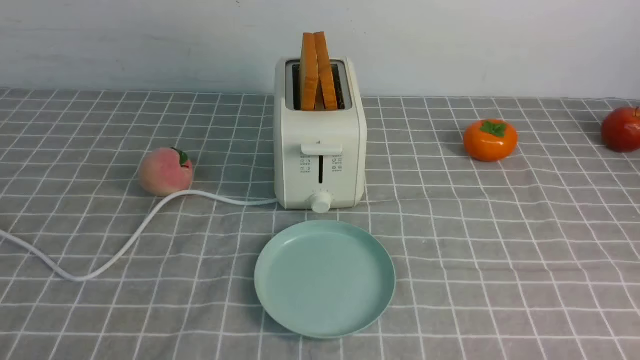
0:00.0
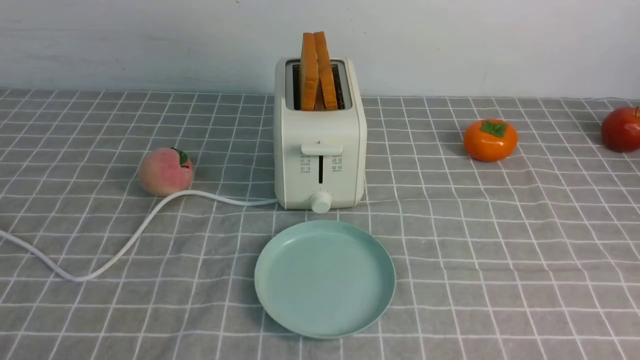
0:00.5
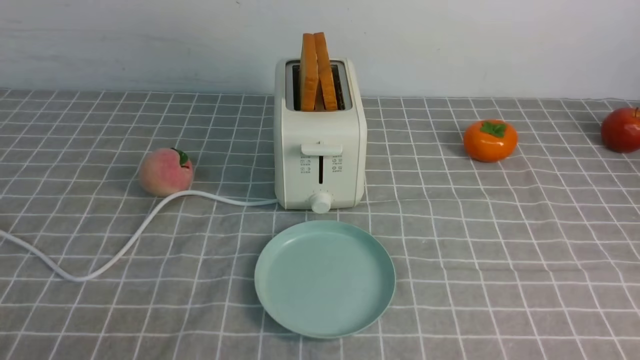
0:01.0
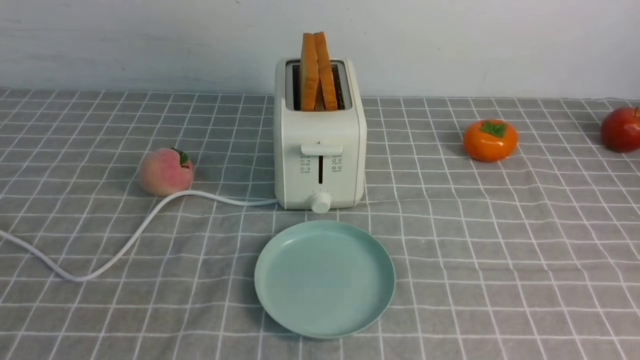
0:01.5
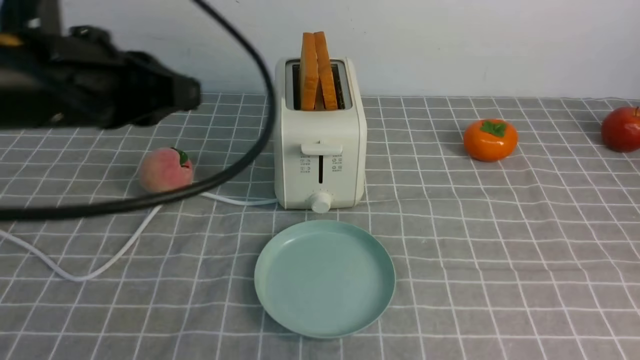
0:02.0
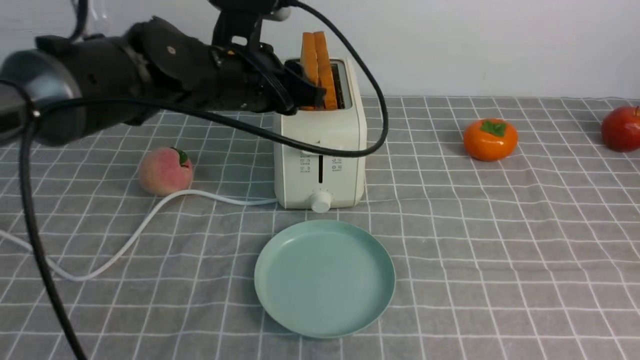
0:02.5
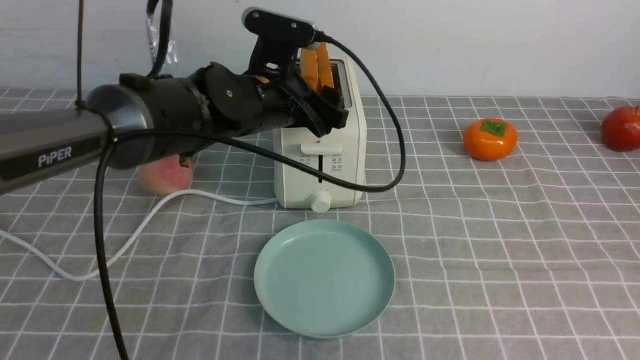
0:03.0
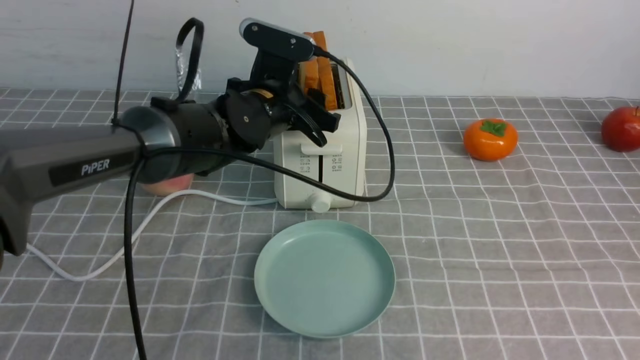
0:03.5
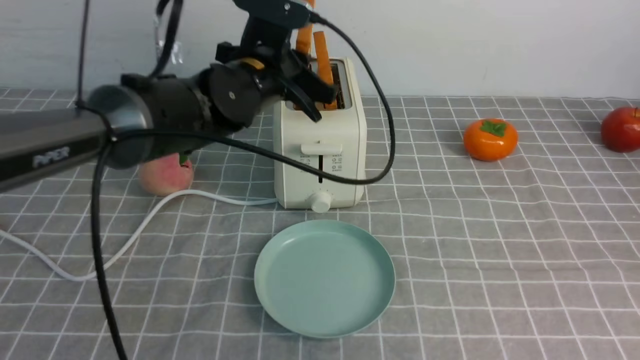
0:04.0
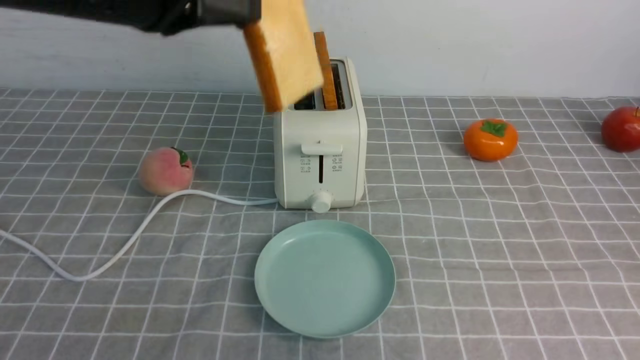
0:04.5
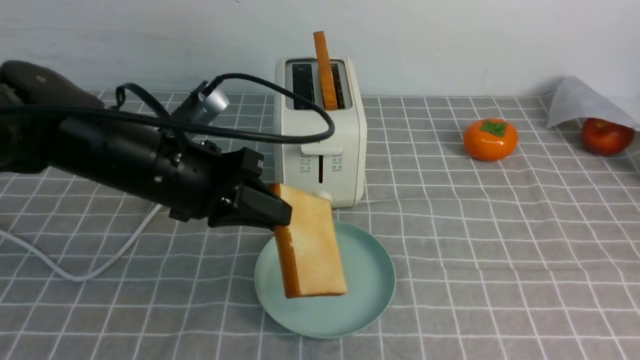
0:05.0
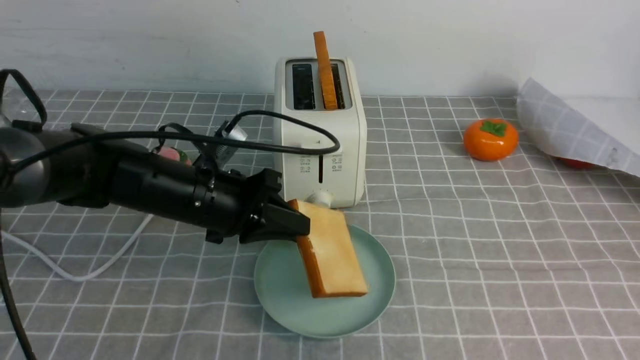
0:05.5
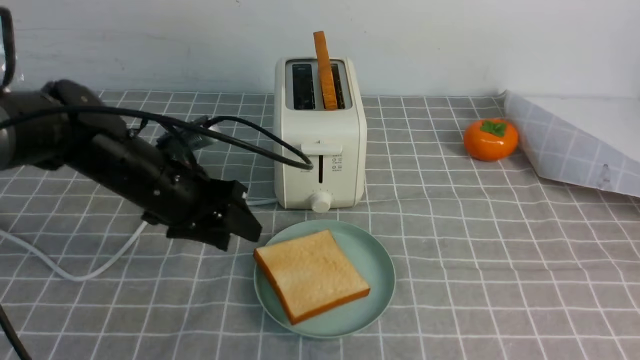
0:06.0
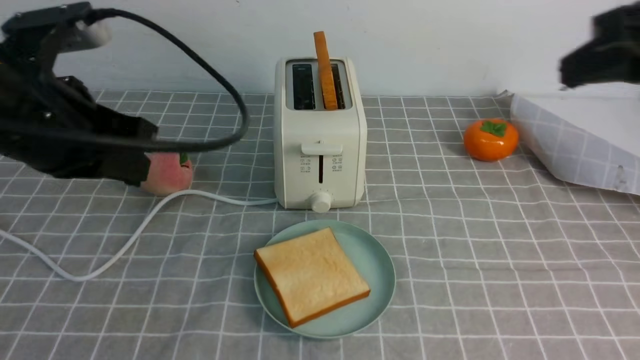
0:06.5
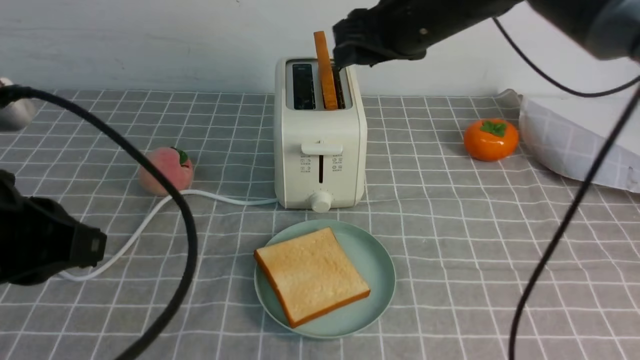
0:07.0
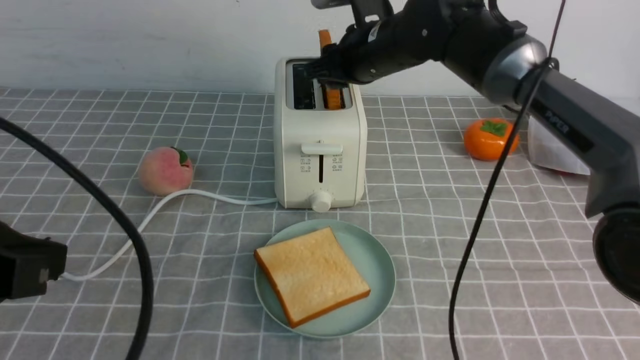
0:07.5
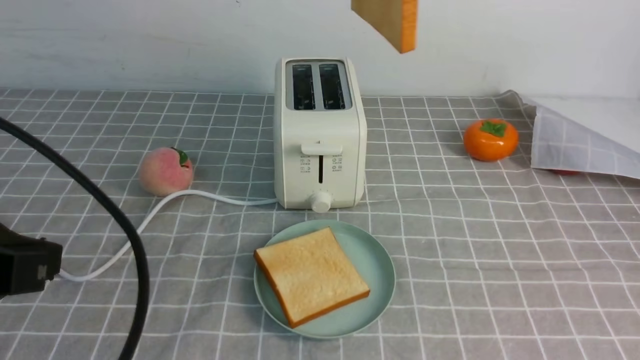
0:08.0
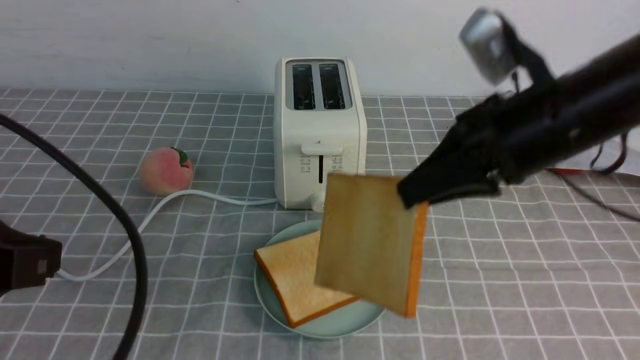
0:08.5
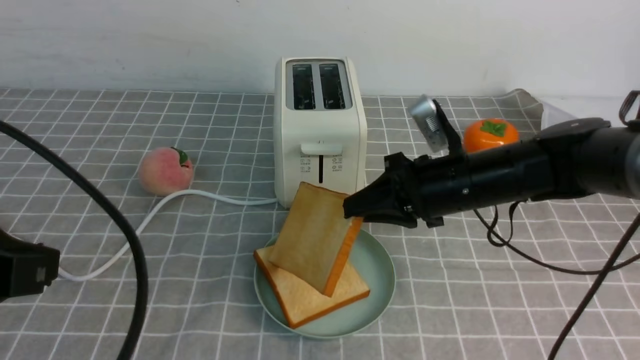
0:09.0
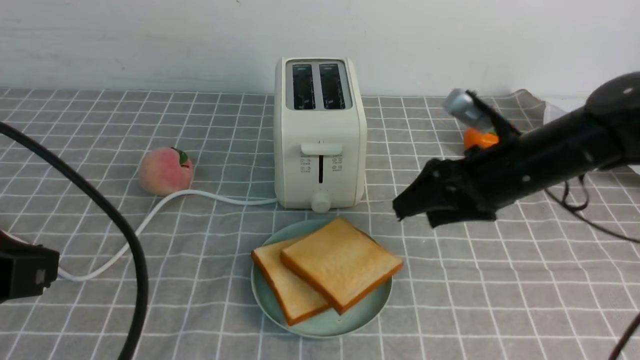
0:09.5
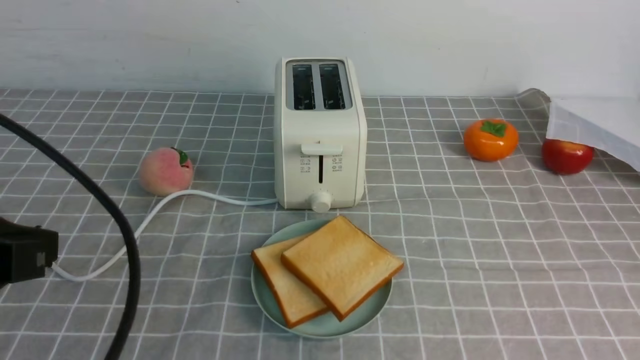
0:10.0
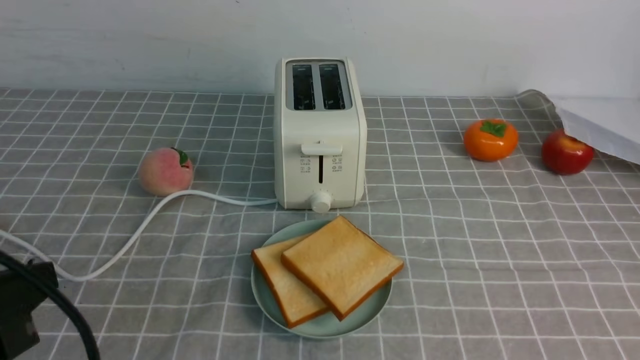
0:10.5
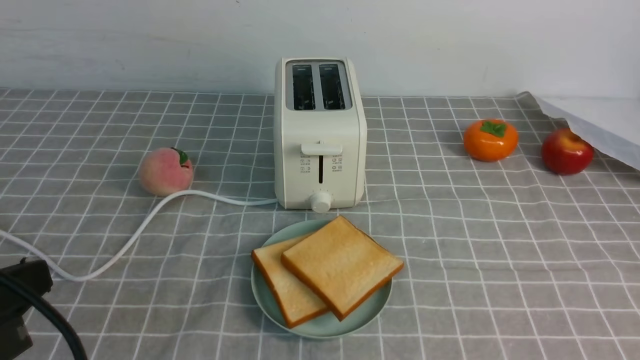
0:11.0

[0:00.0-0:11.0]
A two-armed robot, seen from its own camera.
Task of the whole recording: take toasted bread from bread machine on grey coffee table place on plate.
Step, 0:00.0 to 0:04.0: use the left arm to take out a slice of bread.
Step, 0:04.5 to 0:06.0: use the left arm to put a slice of bread into the empty plate.
Step, 0:06.5 to 0:07.5: use the right arm to take out a slice of bread.
Step, 0:08.0 to 0:09.5: use the right arm to put a slice of bread into the plate.
0:00.0 to 0:02.0: The left gripper goes approximately 30 cm forward and upward, and closes up; the right gripper moves upward, roughly 20 cm, and closes its fingers.
0:02.0 to 0:03.5: The left gripper moves forward, downward and to the right, some 20 cm, and opens.
0:03.5 to 0:05.5: The left gripper goes approximately 10 cm backward and to the left, and travels upward and back again, some 15 cm each way.
0:05.5 to 0:07.5: The right gripper heads forward and to the left, covering about 40 cm, and opens its fingers, while the left gripper goes roughly 30 cm backward, upward and to the left, and opens, then closes once more.
0:07.5 to 0:09.0: The right gripper moves backward, downward and to the right, about 15 cm.
0:09.0 to 0:11.0: The right gripper travels backward and to the right by about 35 cm, and opens, then closes once more. Meanwhile the left gripper is displaced downward by some 5 cm.

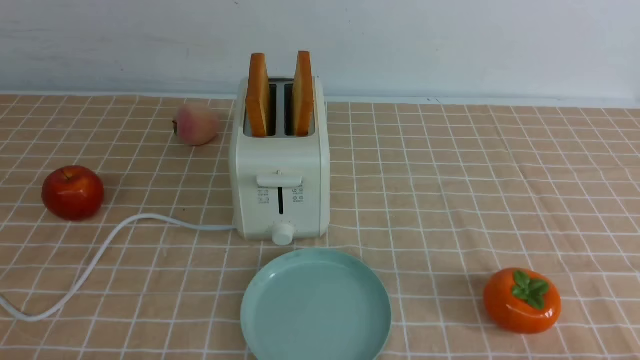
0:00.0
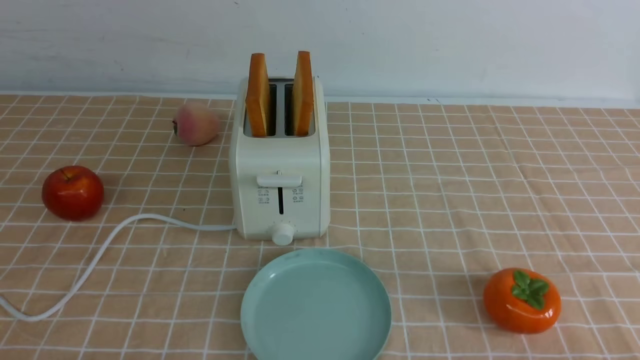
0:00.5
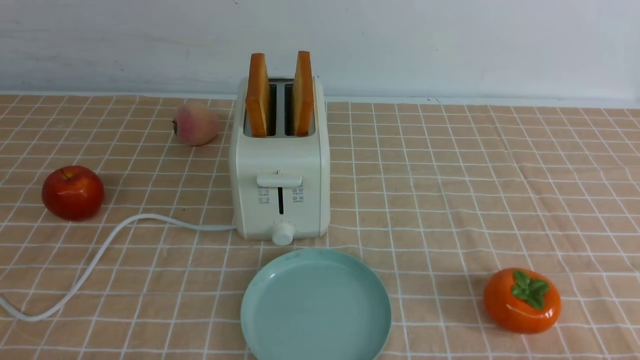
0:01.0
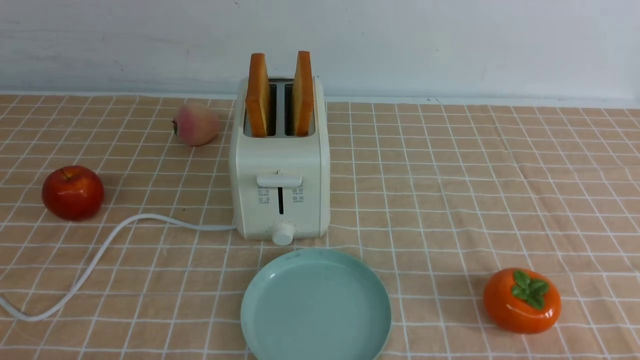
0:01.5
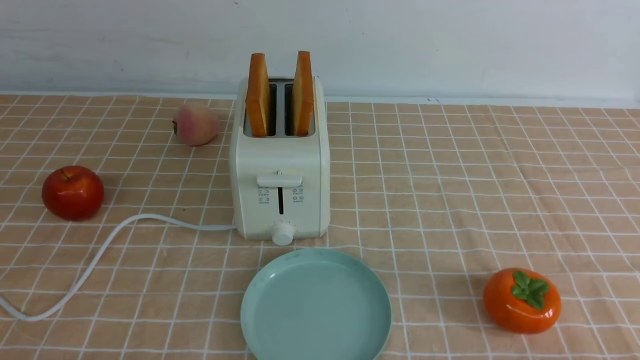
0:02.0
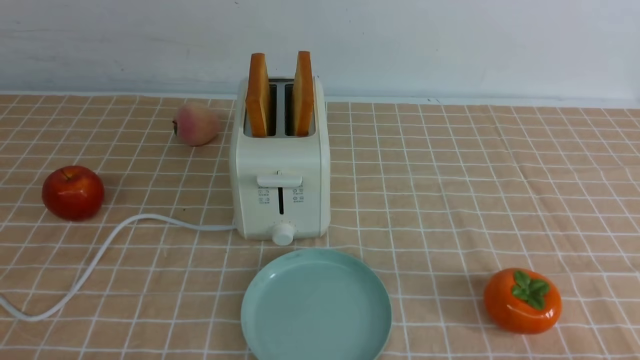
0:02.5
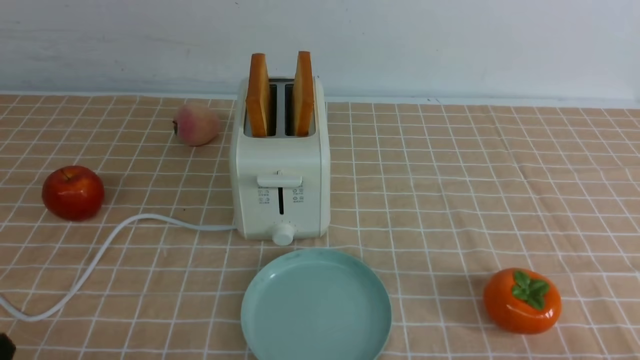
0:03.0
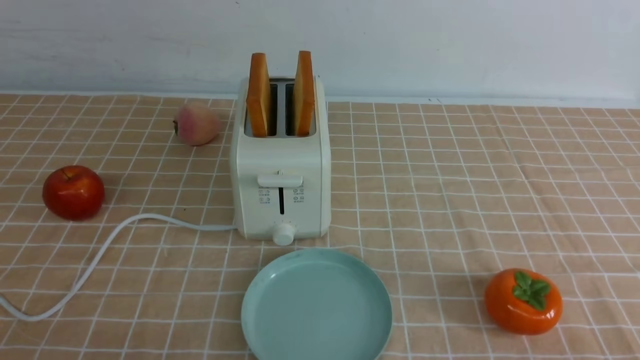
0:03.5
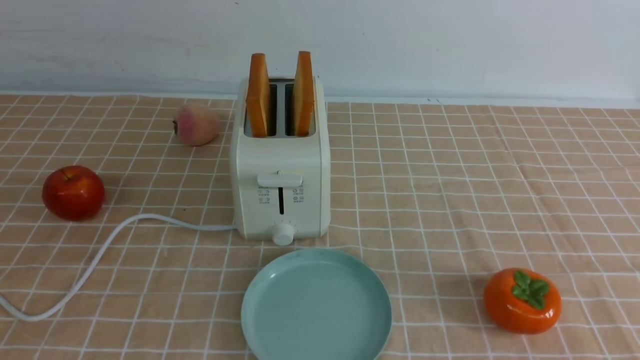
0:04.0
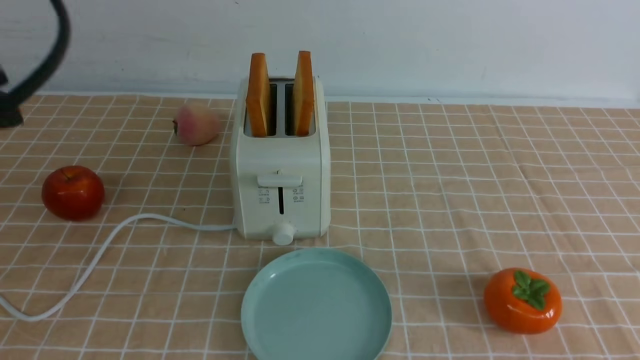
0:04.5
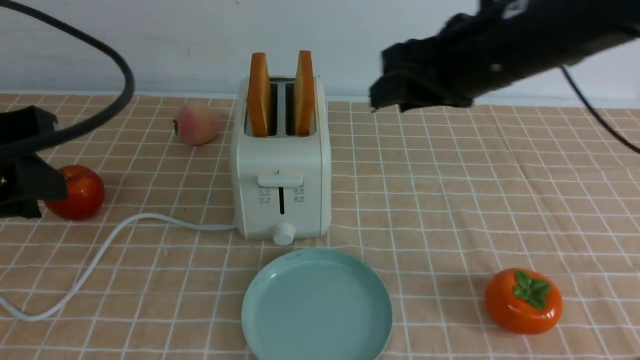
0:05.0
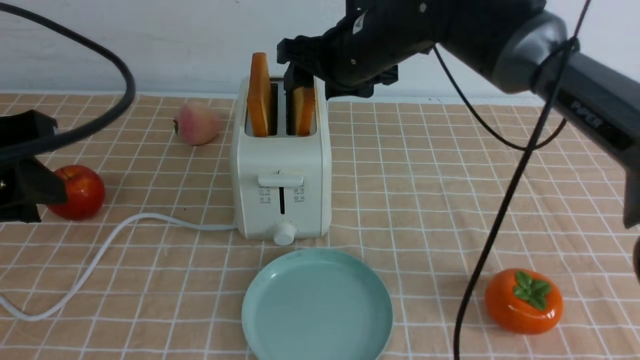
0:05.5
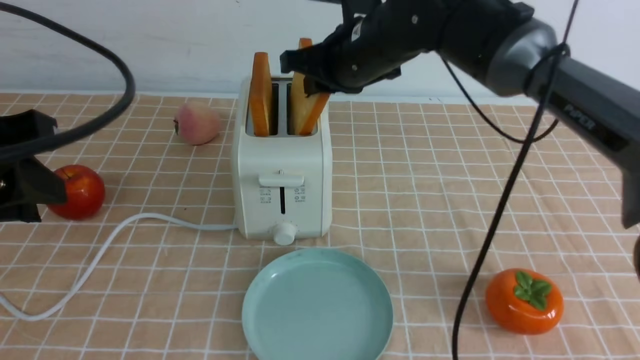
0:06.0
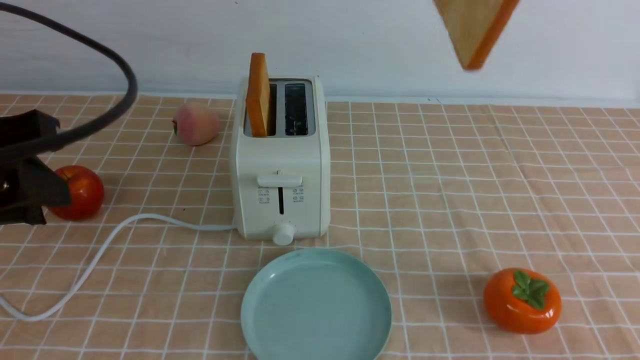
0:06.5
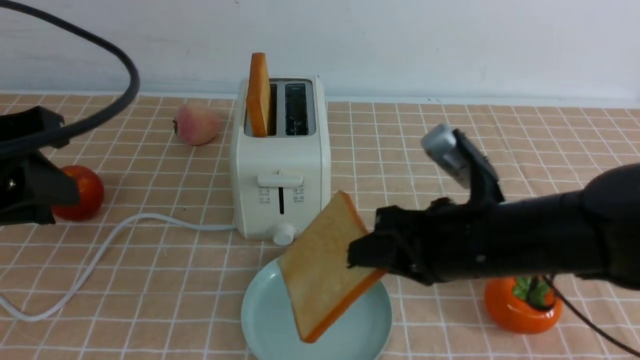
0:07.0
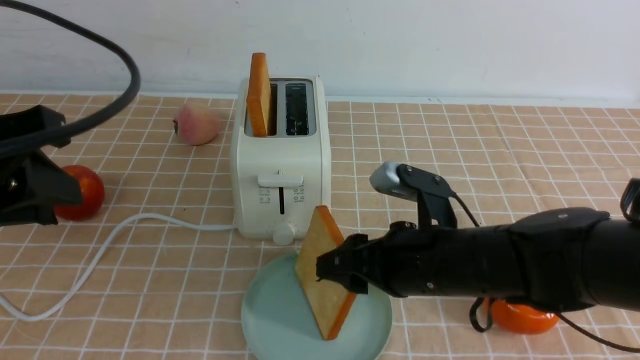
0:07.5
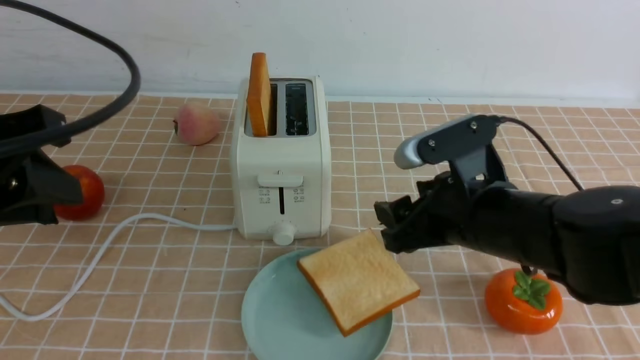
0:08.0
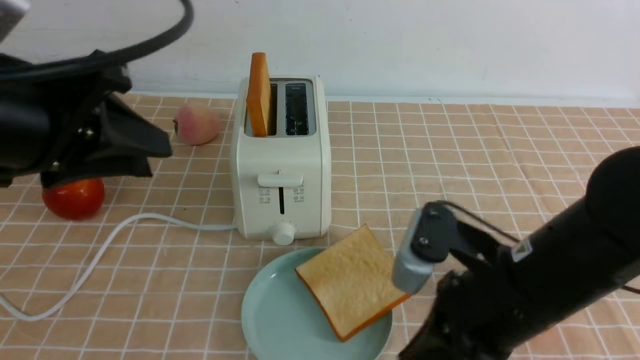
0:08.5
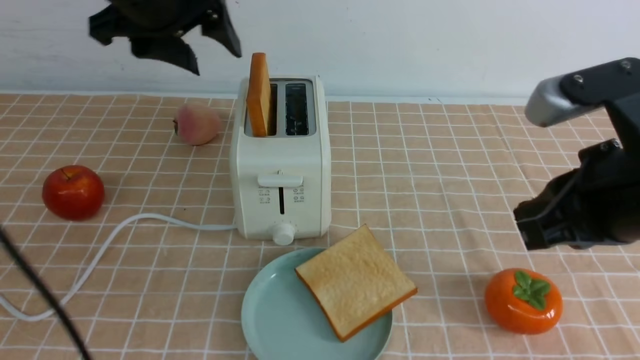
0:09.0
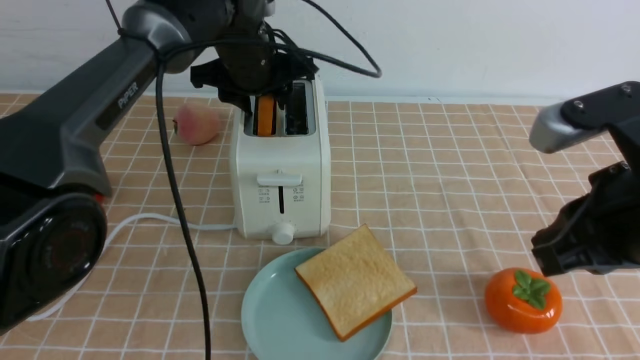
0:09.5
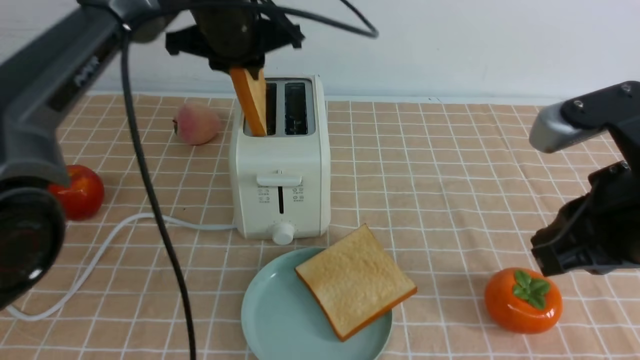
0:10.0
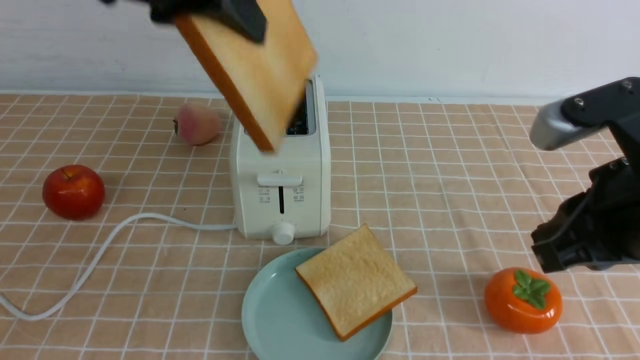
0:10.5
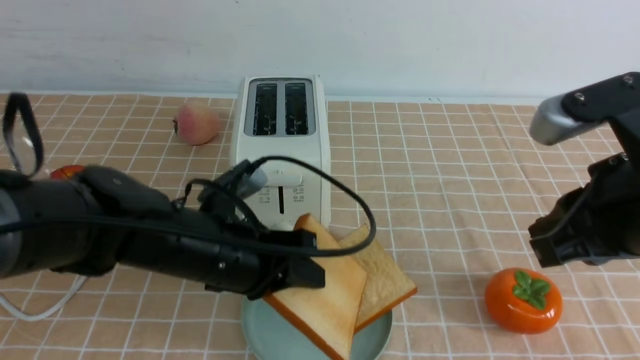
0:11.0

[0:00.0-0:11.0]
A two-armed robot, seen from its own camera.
Task of the whole recording: take toasted bread from bread machine on light coffee tablecloth place on plate.
Step, 0:00.0 to 0:06.0: use the right arm to take out a slice of bread.
Step, 0:06.5 to 0:08.0: use the right arm to put a slice of bread into the plate.
Step, 0:08.5 to 0:10.0: use the left arm to take out a slice of bread.
0:00.0 to 0:02.0: Both grippers stay put.
0:03.5 to 0:05.5: The right gripper heads forward and to the left, covering roughly 50 cm, and opens up. The left gripper is displaced forward and upward by some 20 cm.
0:05.5 to 0:07.5: The right gripper shifts roughly 20 cm backward and downward, and closes, then opens again.
0:07.5 to 0:09.0: The right gripper is displaced upward, to the right and backward by roughly 20 cm, and closes. Meanwhile the left gripper travels forward and to the right by roughly 20 cm, and opens its fingers.
0:09.0 to 0:11.0: The left gripper goes up and down, roughly 20 cm each way, reversing 2 times, and closes up.
